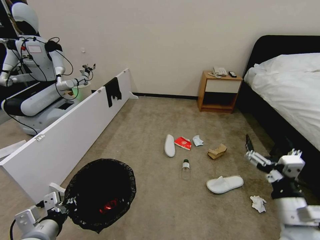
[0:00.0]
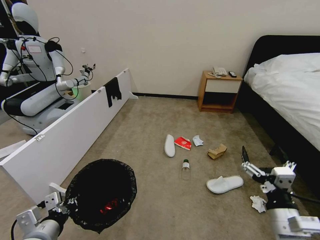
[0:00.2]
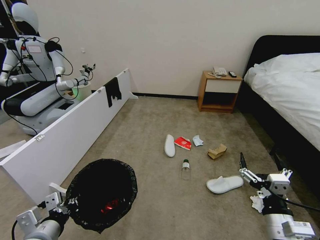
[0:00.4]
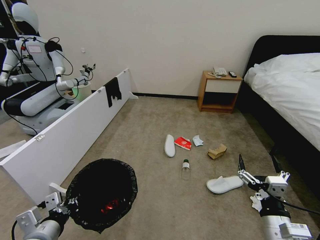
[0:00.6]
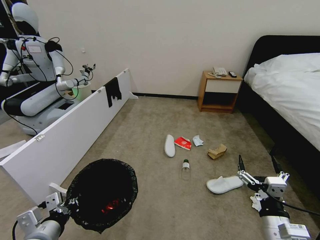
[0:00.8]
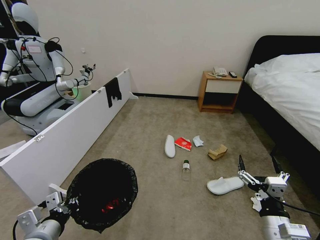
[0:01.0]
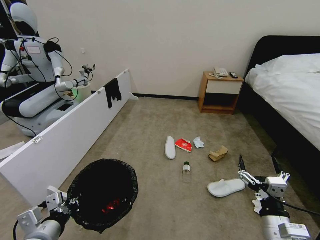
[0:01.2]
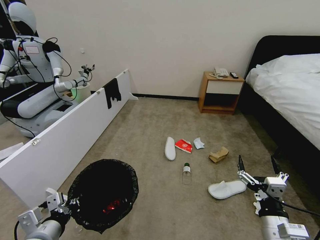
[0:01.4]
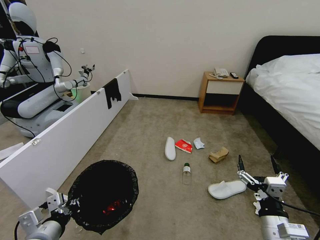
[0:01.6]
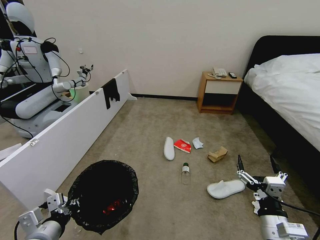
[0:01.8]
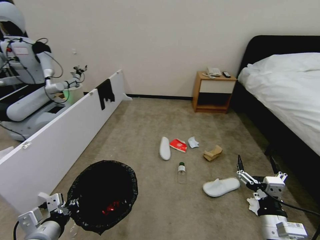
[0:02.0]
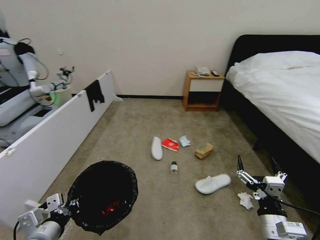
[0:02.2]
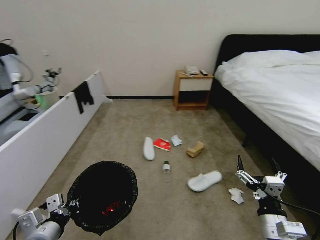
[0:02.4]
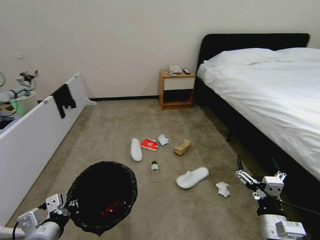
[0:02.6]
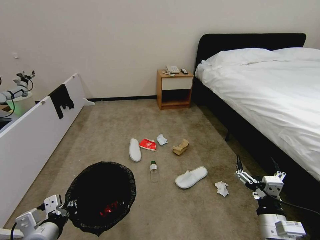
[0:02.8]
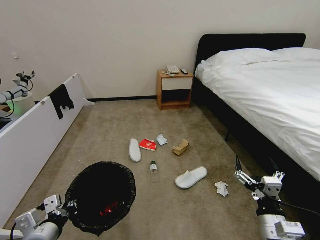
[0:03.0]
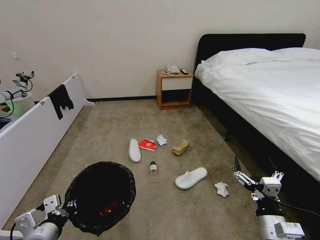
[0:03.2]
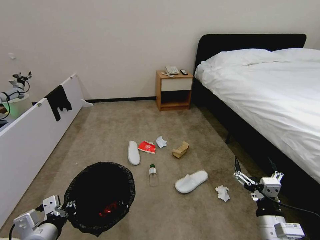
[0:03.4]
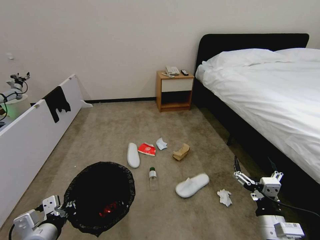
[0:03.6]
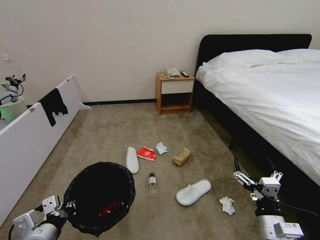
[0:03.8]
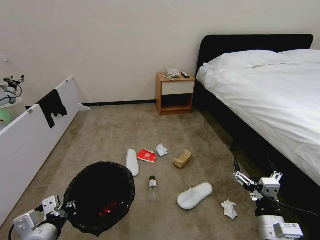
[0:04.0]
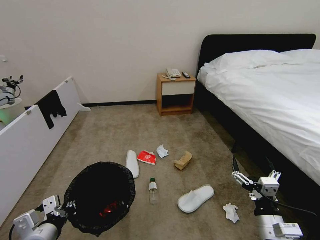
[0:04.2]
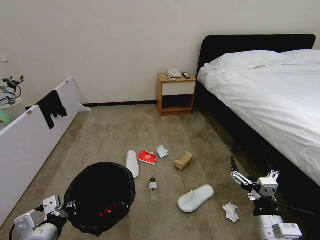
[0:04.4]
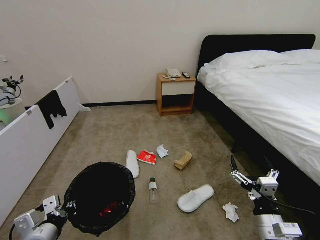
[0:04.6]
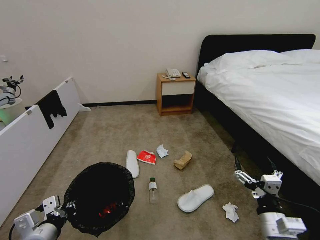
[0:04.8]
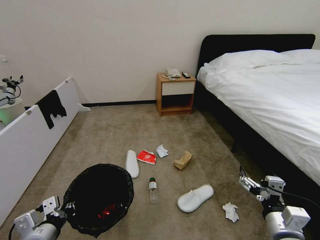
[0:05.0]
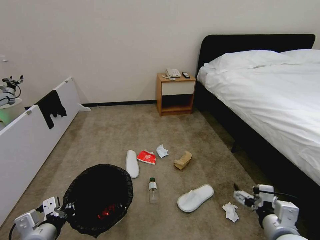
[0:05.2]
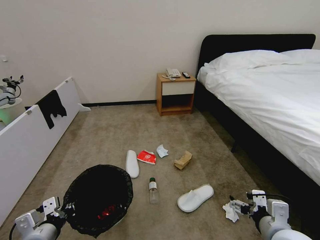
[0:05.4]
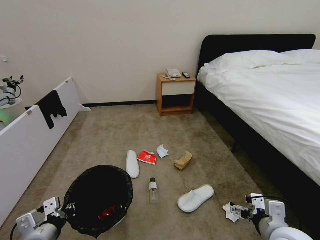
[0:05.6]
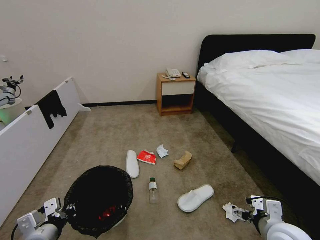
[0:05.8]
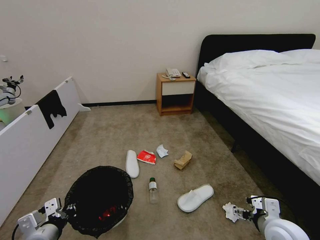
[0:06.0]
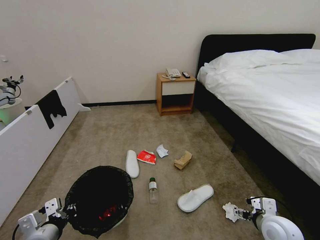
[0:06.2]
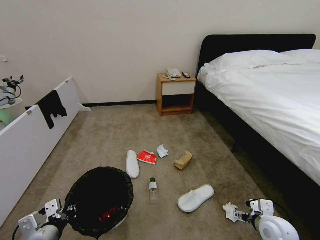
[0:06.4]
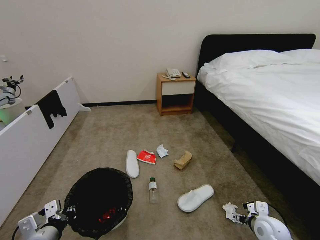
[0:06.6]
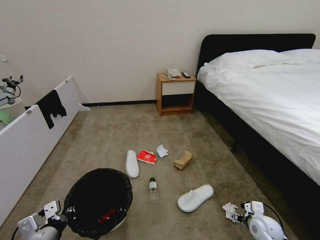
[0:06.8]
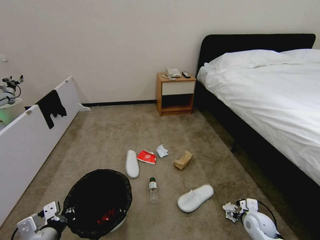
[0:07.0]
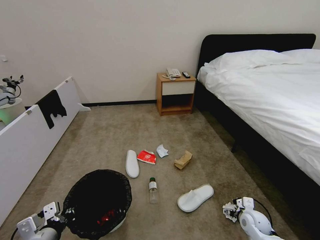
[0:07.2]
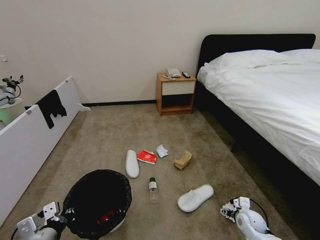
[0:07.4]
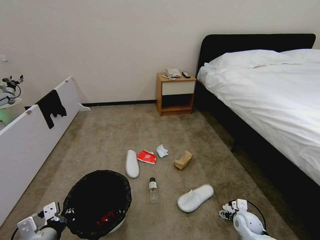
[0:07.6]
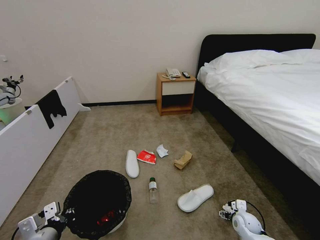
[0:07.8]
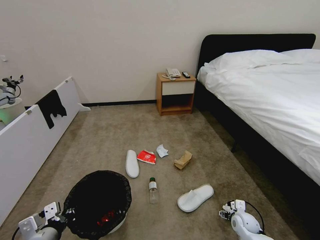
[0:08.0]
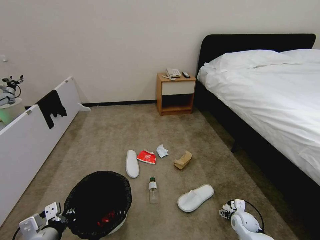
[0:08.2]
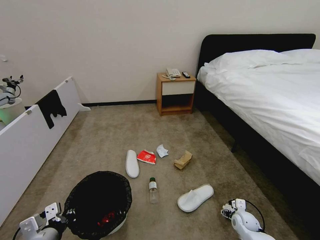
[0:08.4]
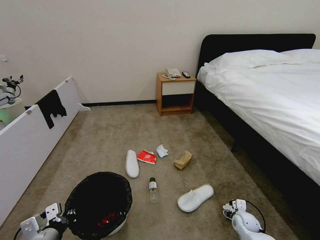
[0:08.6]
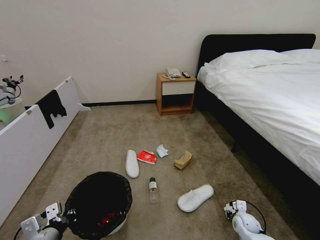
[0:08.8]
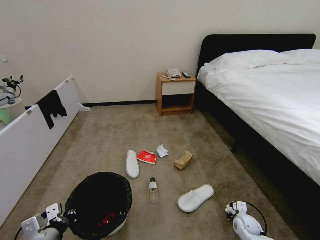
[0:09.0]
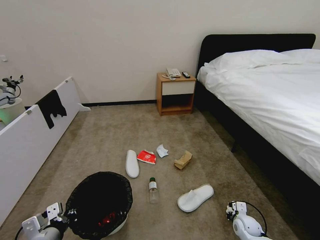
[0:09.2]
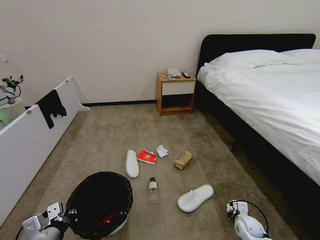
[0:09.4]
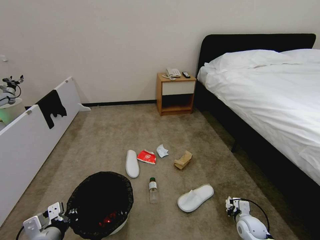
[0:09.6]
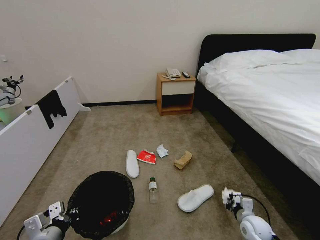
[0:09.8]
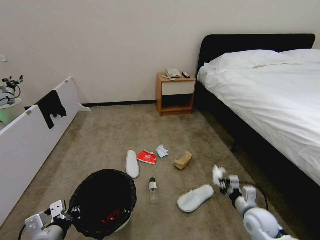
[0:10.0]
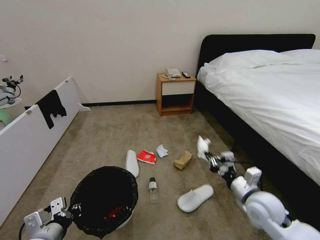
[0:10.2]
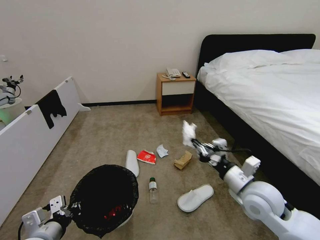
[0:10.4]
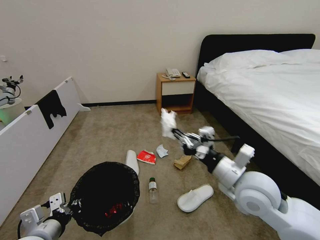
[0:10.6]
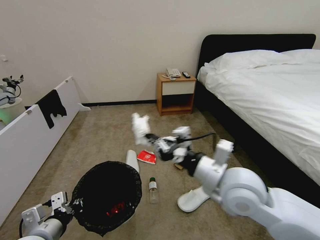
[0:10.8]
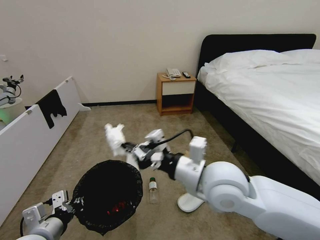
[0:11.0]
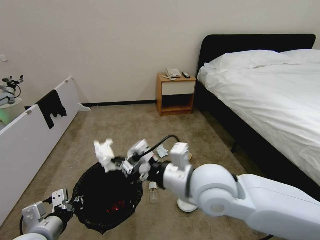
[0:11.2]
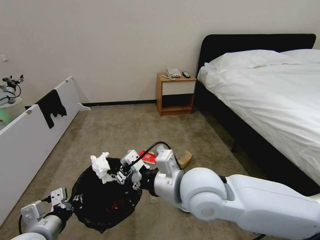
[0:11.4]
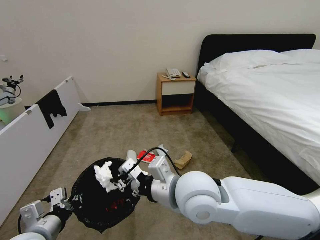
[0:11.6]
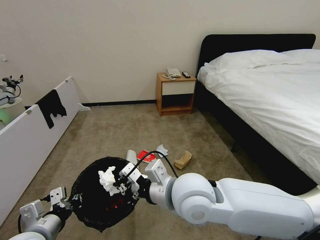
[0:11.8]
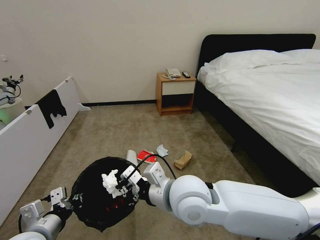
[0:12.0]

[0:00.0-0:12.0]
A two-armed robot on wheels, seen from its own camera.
Task of the whole recording: Pick up the trash bin, then pick up the garbage from the floor and place it into the trash bin.
0:00.0 to 0:01.6: The right gripper goes some 10 cm downward.
0:03.0 to 0:04.4: Both grippers stay about where they are.
0:04.4 to 0:06.0: The right gripper travels forward by roughly 5 cm.
0:06.0 to 0:07.6: The right gripper heads downward and forward, covering about 20 cm.
0:07.6 to 0:09.0: The right gripper closes.
0:09.0 to 0:10.4: The right gripper heads upward, covering roughly 25 cm.
0:10.4 to 0:12.0: The right gripper goes some 25 cm to the left and upward.

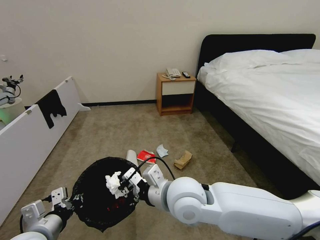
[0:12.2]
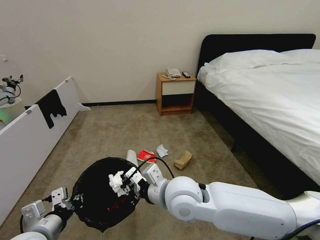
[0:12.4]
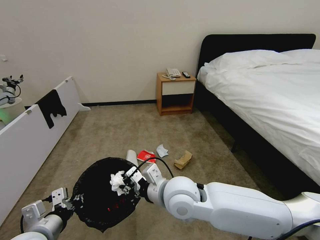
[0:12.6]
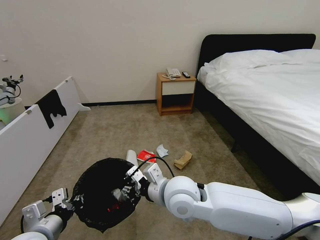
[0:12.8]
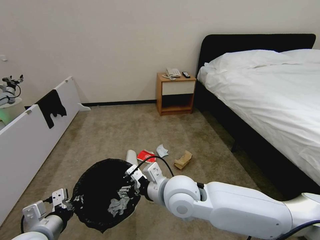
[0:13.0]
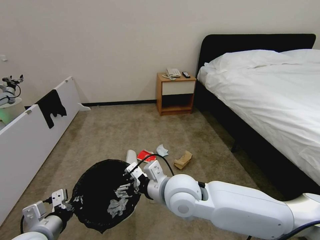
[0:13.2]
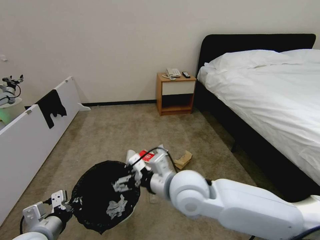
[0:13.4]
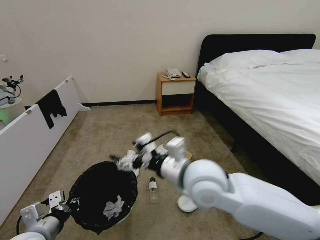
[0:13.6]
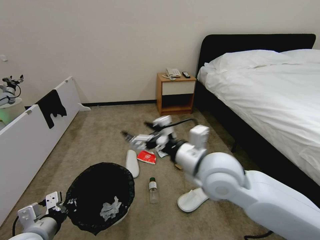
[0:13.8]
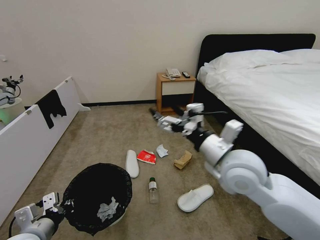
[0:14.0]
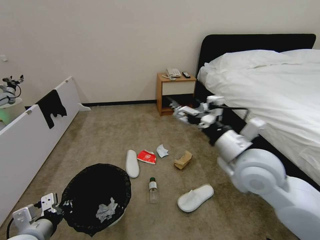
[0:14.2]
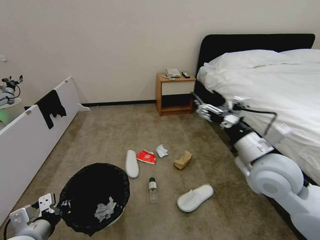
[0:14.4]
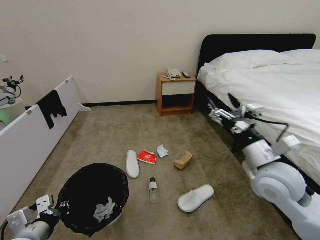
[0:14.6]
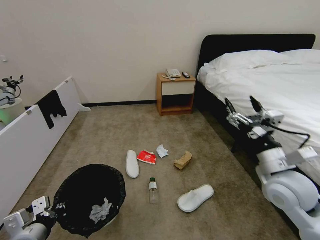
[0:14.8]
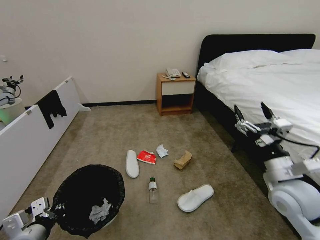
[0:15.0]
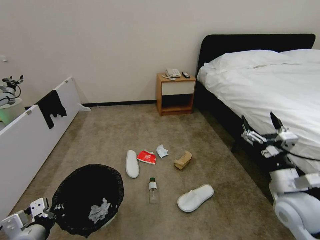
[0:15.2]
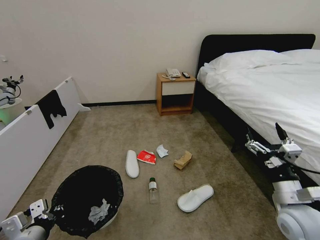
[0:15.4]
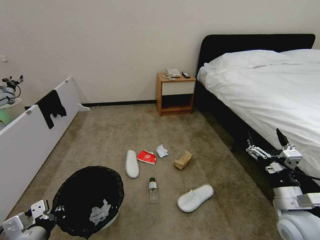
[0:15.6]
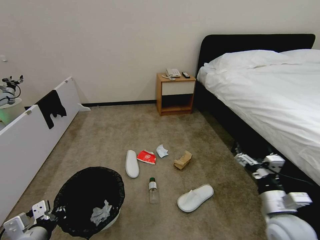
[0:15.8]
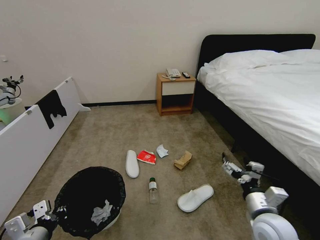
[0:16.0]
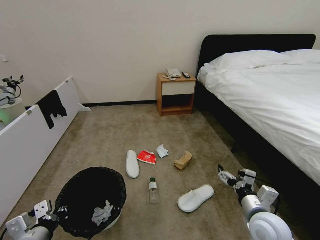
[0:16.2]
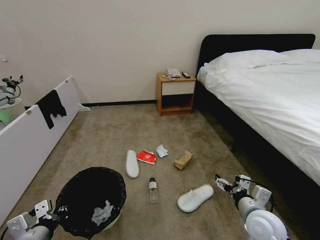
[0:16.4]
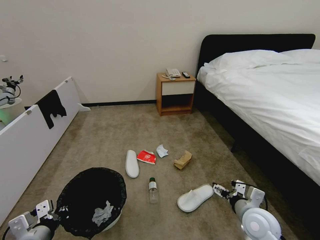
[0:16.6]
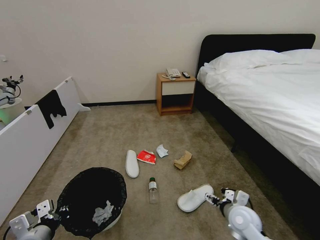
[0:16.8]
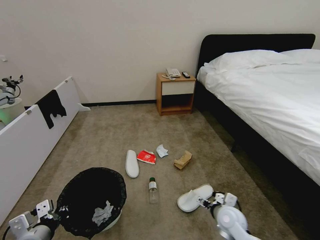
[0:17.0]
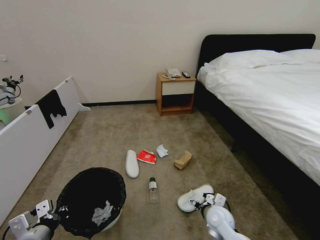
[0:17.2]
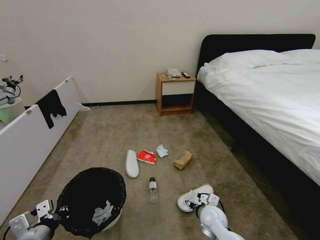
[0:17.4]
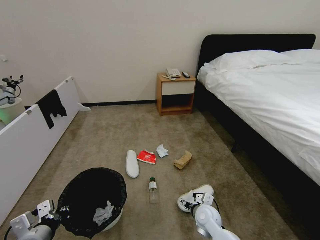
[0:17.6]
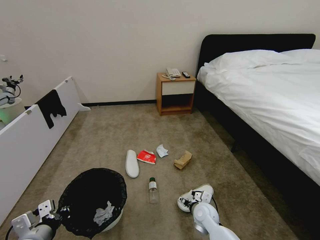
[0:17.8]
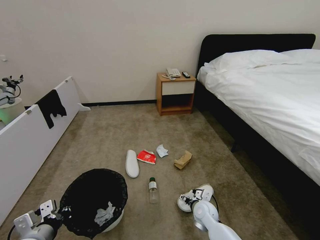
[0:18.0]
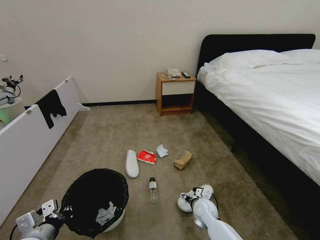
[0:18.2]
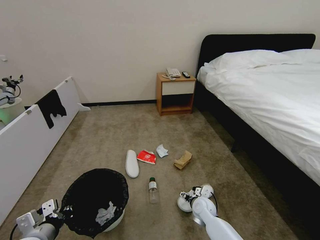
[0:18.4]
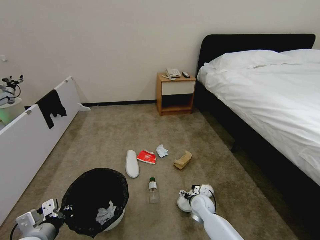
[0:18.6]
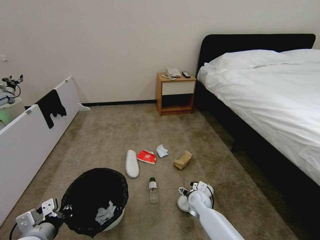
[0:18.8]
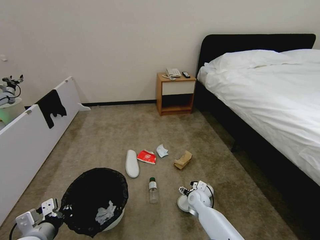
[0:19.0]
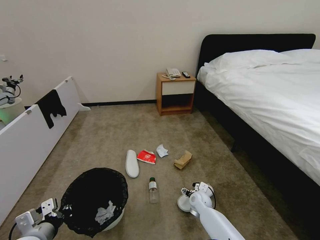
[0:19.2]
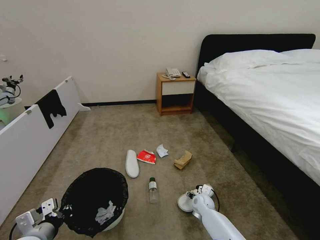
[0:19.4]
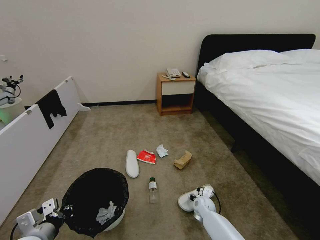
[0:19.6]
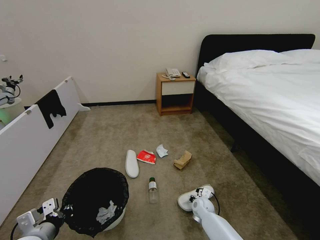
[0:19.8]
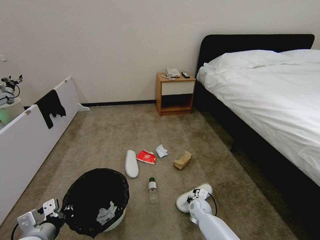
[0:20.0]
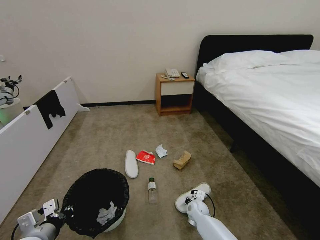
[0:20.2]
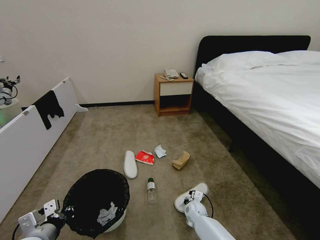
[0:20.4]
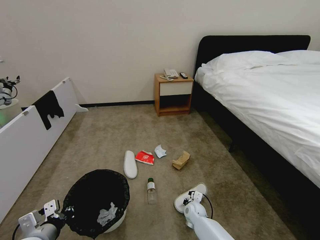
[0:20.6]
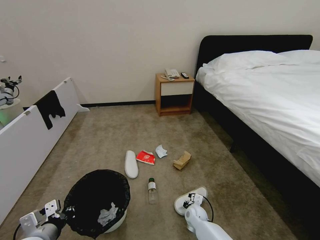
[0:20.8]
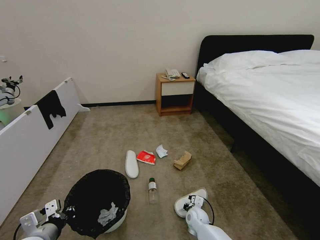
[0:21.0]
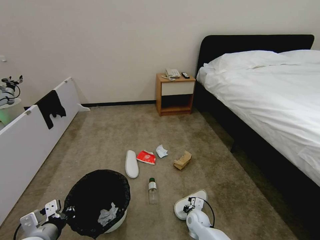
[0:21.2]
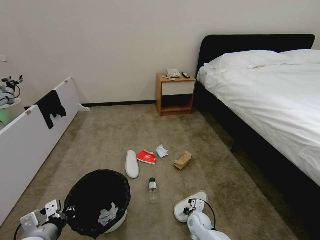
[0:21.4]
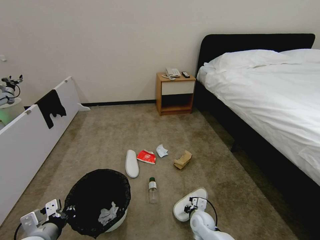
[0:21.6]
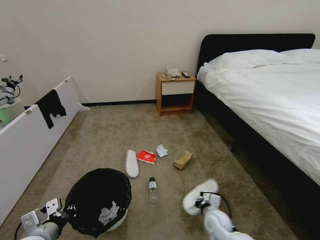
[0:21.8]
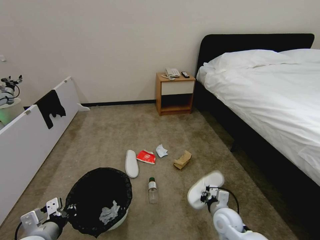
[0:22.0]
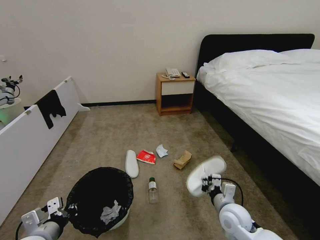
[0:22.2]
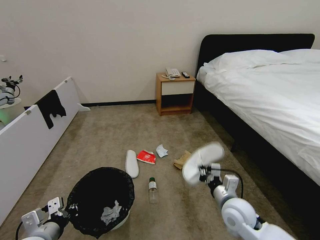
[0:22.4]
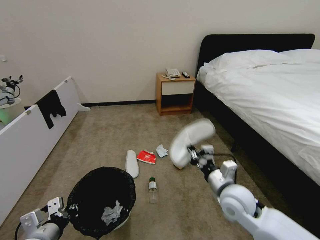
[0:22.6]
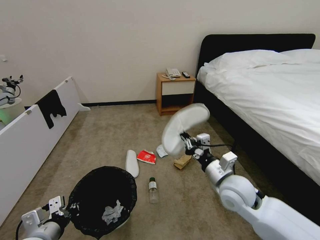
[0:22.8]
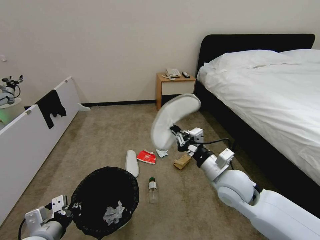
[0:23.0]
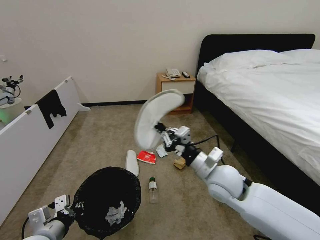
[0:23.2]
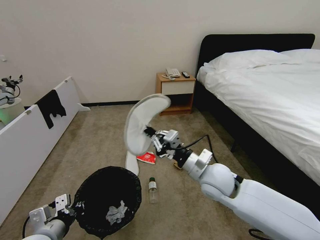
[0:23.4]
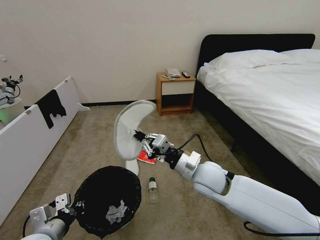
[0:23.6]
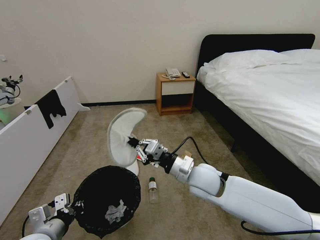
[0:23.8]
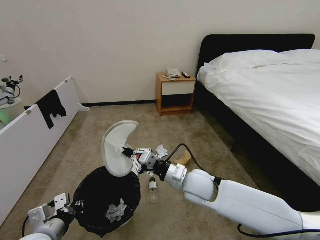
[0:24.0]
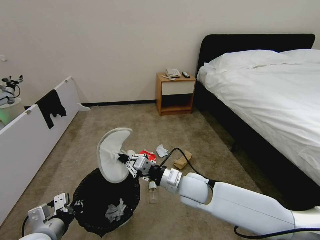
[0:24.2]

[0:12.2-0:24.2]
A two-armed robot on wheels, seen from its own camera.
Task of the whole recording: Pick up the trash bin, then pick up the garbage from the floor and place it into the trash bin.
0:12.2 to 0:13.8: The right gripper moves to the right and upward, approximately 10 cm, and opens.
0:13.8 to 0:15.2: The right gripper moves to the right and downward, approximately 25 cm.
0:15.2 to 0:16.6: The right gripper travels downward and to the left by some 10 cm.
0:16.6 to 0:18.2: The right gripper moves downward, to the left and forward, approximately 20 cm.
0:18.2 to 0:19.8: The right gripper goes about 5 cm downward, and closes.
0:19.8 to 0:21.2: The right gripper moves backward, some 5 cm, and closes up.
0:21.2 to 0:22.6: The right gripper travels upward by about 25 cm.
0:22.6 to 0:24.2: The right gripper is displaced to the left by roughly 15 cm.
